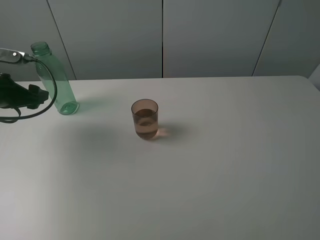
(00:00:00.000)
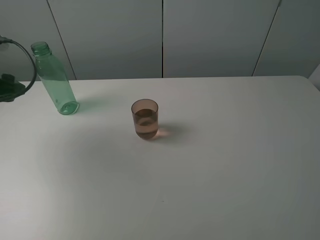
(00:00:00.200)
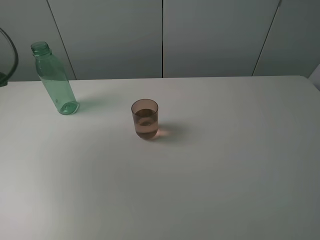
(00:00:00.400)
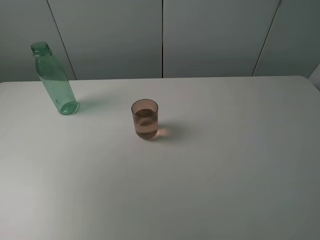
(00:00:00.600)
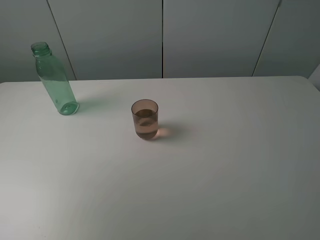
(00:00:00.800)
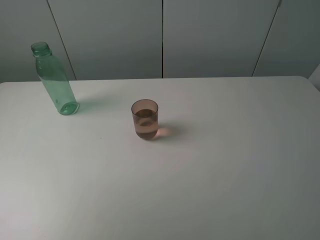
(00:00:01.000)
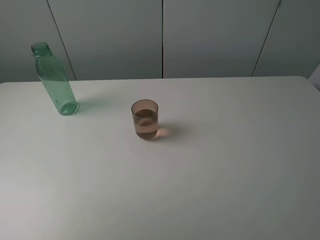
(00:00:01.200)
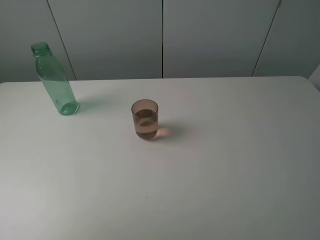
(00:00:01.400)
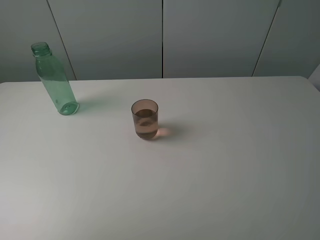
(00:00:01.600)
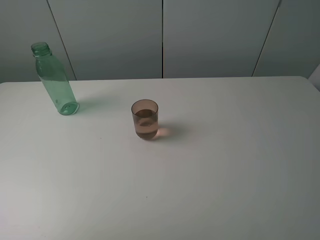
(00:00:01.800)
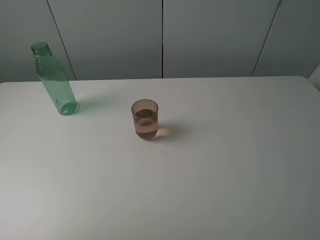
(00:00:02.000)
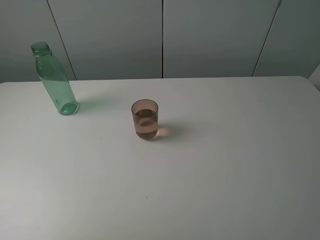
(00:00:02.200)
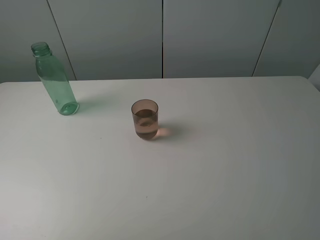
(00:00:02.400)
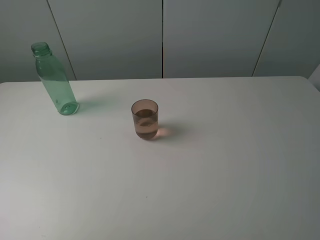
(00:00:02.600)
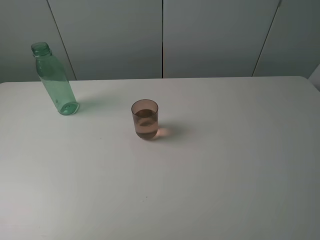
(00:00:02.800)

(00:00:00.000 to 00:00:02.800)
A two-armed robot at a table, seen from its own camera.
Task of the whole recording: pick up the bottle filled with water and pour it into the pink cup.
00:00:00.000 - 00:00:01.400: The left gripper travels backward and upward by some 30 cm, and closes.
